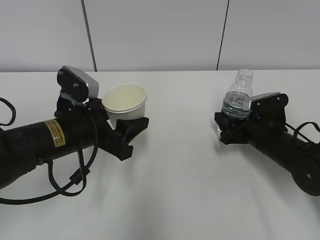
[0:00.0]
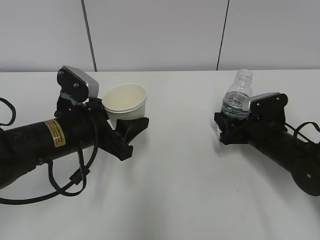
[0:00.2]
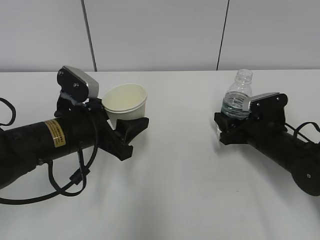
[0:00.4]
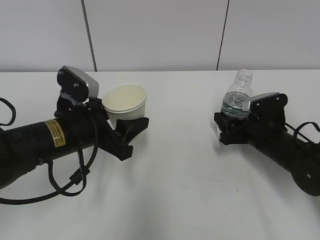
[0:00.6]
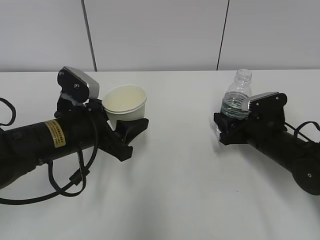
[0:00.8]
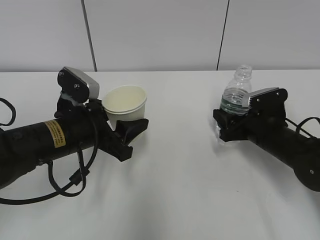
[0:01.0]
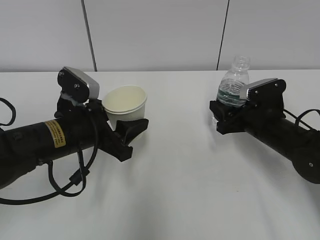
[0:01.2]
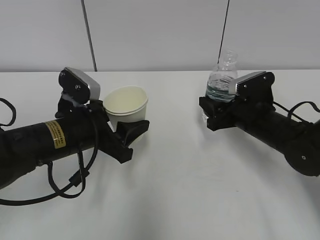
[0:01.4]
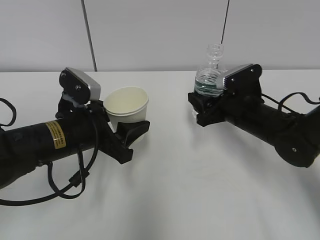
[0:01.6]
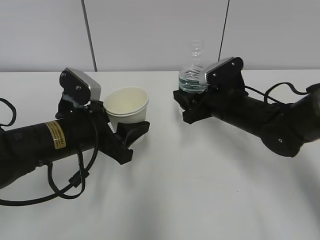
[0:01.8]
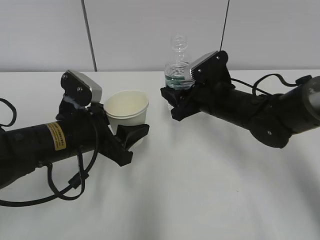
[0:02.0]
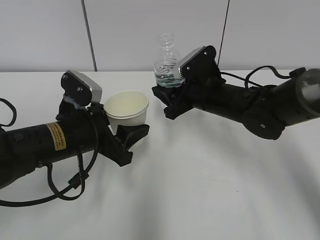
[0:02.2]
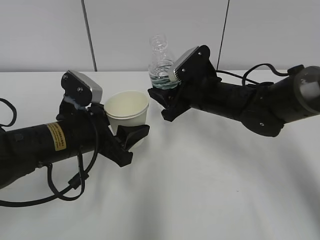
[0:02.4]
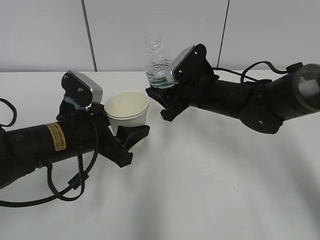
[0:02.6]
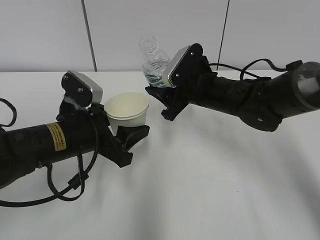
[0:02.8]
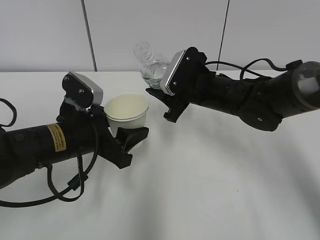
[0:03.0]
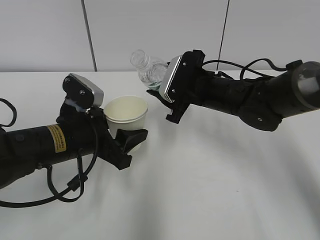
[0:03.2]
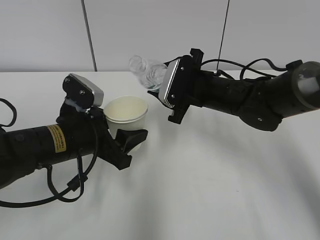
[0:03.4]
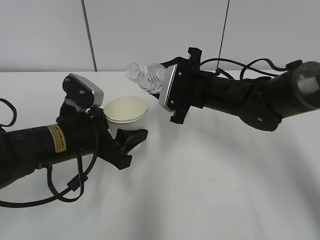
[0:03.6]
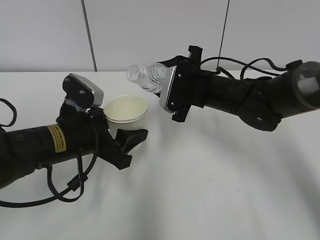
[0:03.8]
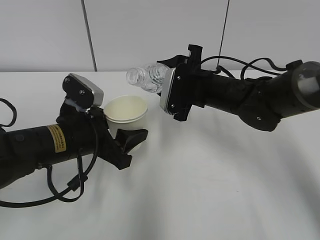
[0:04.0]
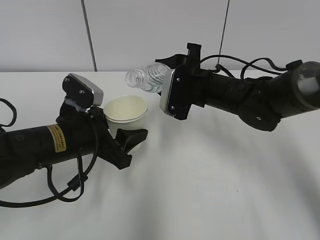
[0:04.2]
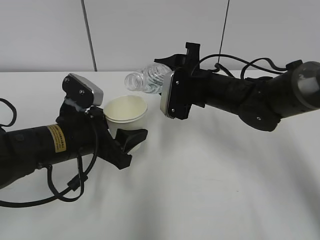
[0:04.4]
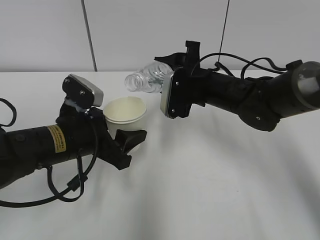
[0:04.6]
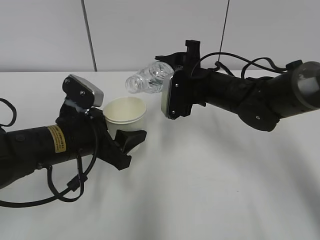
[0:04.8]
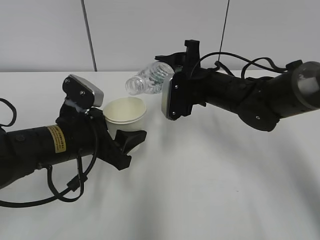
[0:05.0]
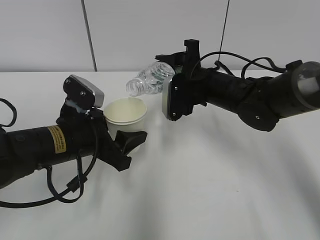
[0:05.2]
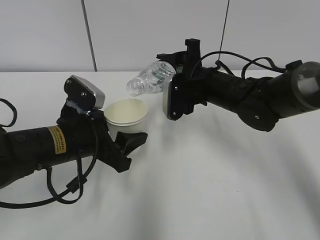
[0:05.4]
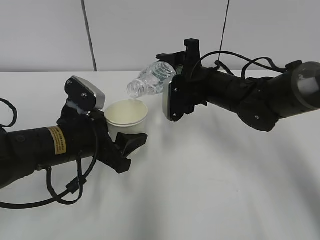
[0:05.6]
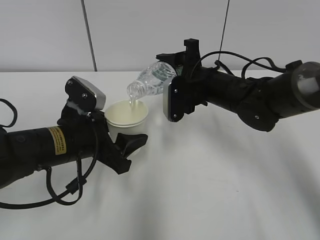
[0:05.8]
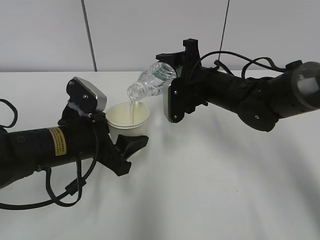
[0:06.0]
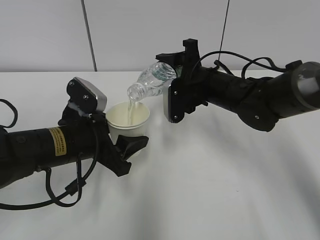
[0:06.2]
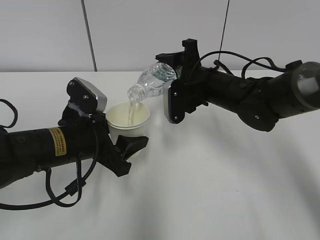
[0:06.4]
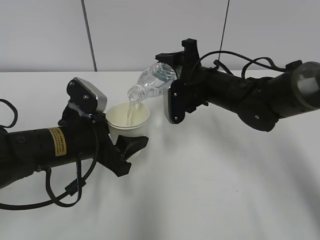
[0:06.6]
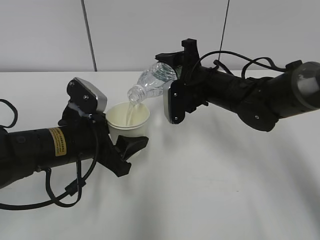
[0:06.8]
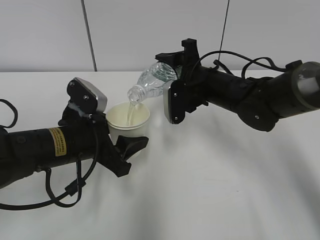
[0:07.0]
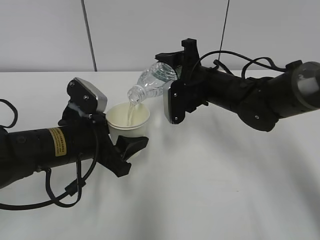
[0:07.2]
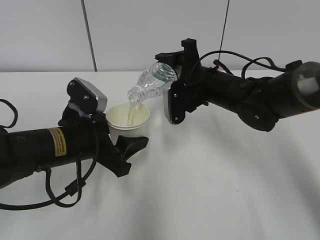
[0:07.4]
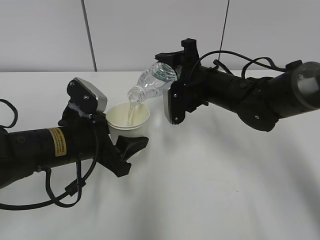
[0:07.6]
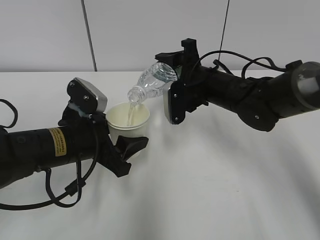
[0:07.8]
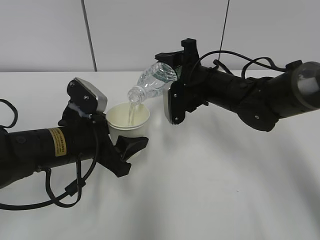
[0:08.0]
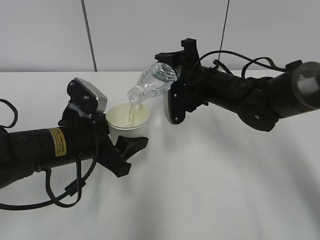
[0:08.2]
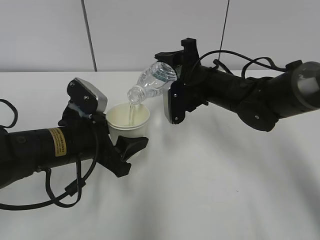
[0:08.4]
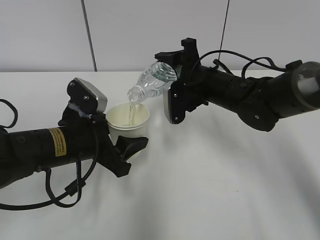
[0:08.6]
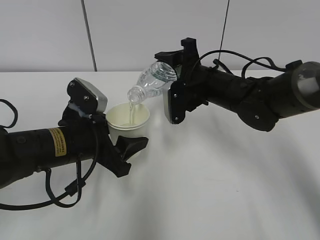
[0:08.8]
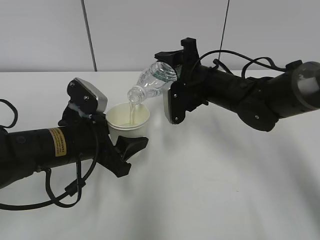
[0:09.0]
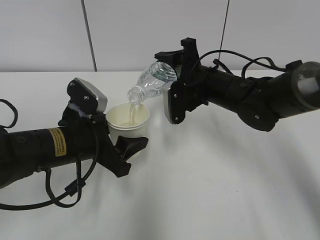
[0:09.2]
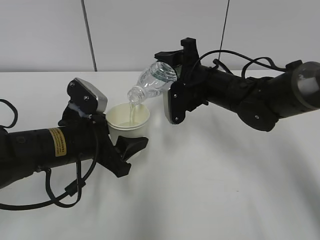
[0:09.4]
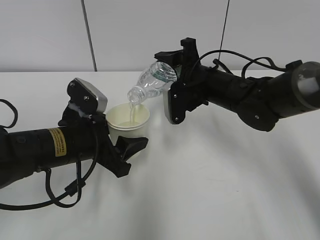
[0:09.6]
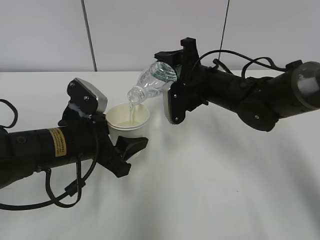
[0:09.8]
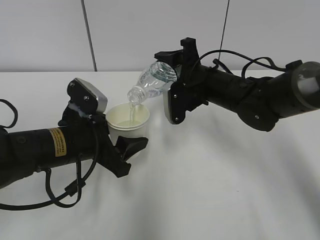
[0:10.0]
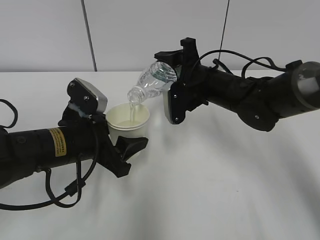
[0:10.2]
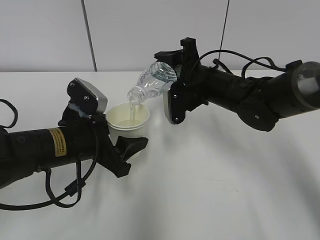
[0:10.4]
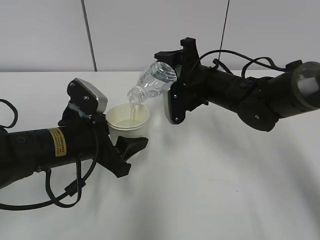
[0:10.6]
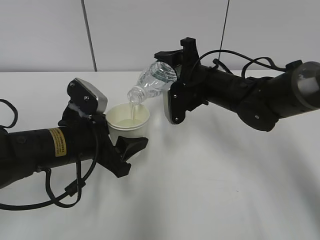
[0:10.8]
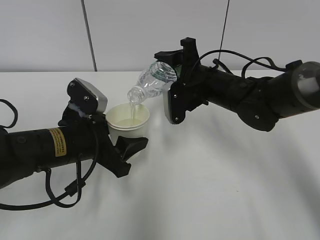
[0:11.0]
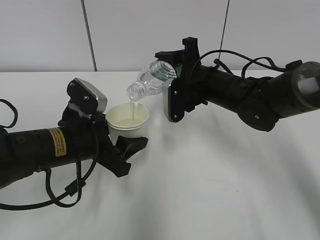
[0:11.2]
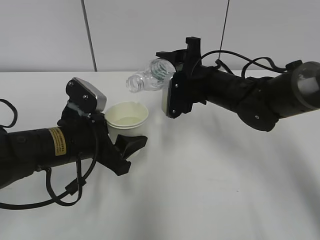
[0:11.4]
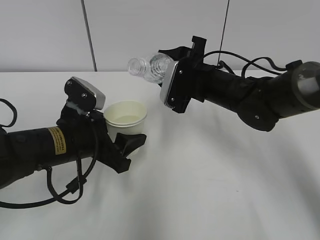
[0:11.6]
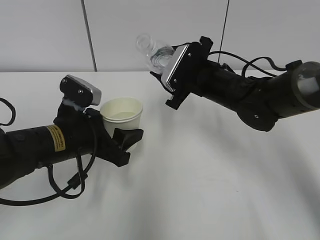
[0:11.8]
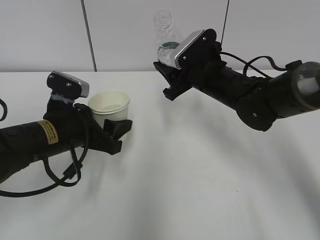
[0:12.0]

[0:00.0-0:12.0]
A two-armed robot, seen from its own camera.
Step, 0:03.0 to 0:07.6: Fill water with the left hand.
Step, 0:03.0 to 0:07.6: Pour water with the right hand.
0:00.0 to 0:01.6: The right gripper shifts roughly 10 cm upward and to the left.
0:01.6 to 0:03.0: The right gripper heads to the left, covering roughly 5 cm.
0:04.4 to 0:06.0: There are only small adjustments of the grippers.
0:06.0 to 0:09.0: Both grippers stay put.
0:09.0 to 0:10.4: Both grippers stay put.

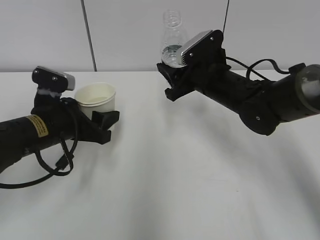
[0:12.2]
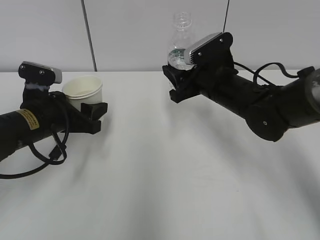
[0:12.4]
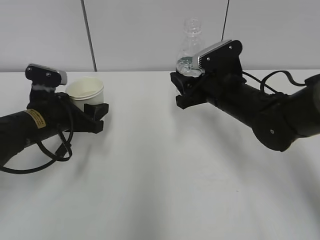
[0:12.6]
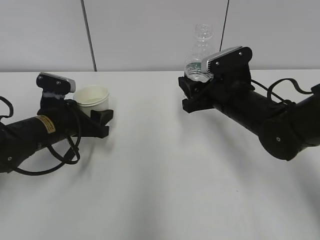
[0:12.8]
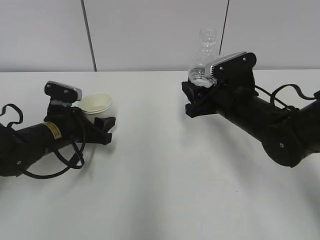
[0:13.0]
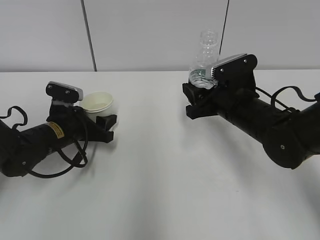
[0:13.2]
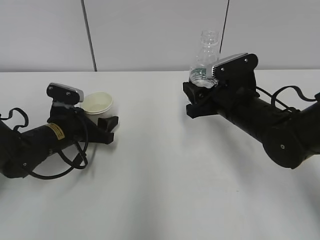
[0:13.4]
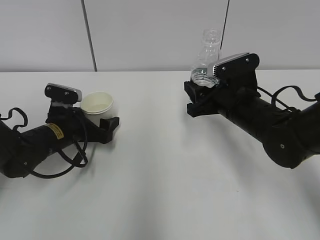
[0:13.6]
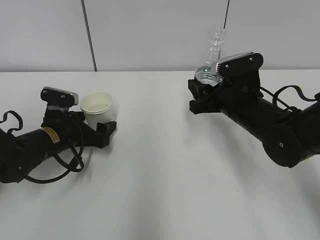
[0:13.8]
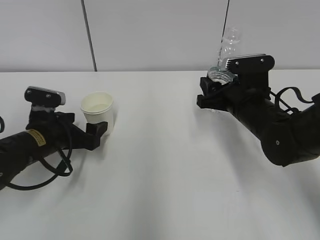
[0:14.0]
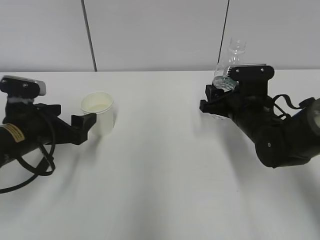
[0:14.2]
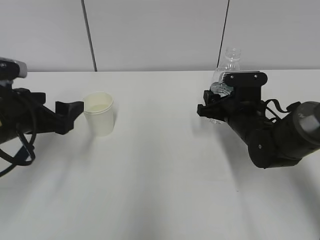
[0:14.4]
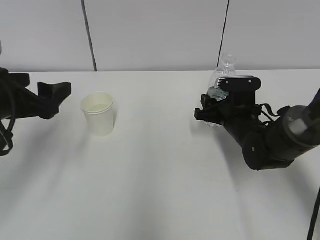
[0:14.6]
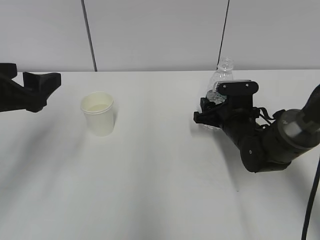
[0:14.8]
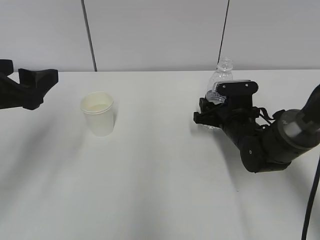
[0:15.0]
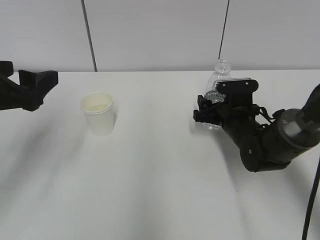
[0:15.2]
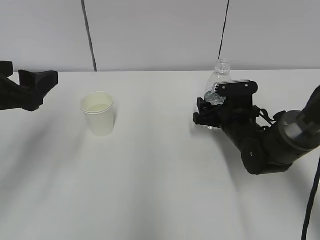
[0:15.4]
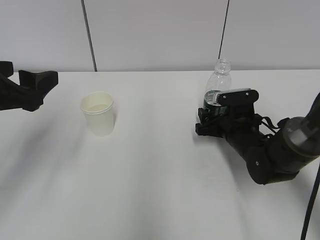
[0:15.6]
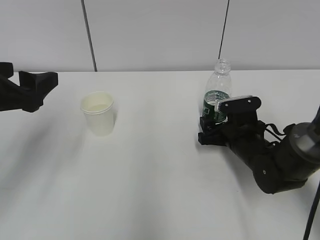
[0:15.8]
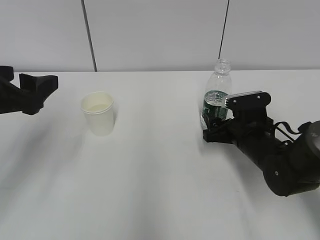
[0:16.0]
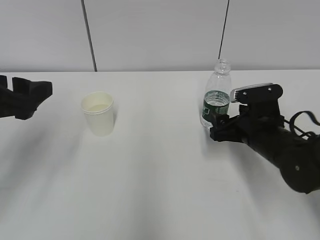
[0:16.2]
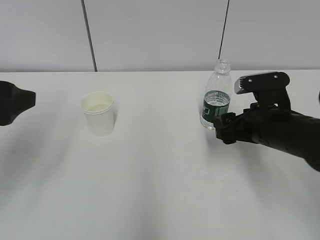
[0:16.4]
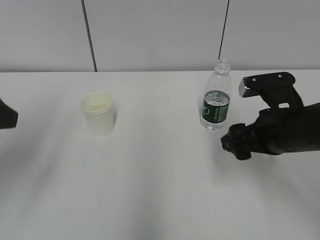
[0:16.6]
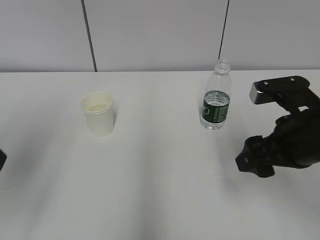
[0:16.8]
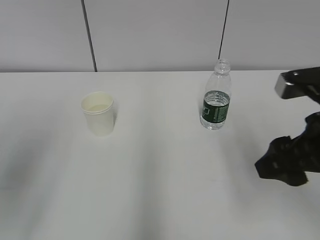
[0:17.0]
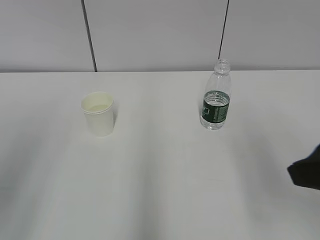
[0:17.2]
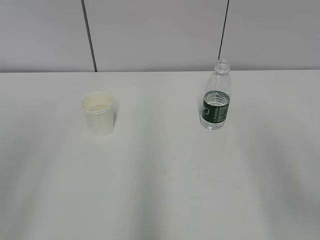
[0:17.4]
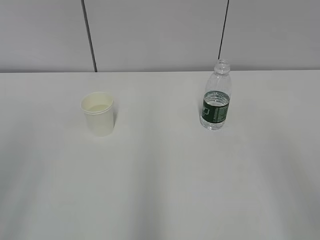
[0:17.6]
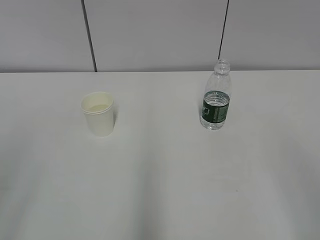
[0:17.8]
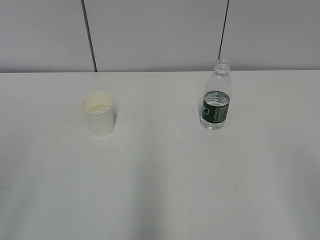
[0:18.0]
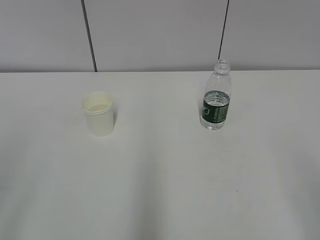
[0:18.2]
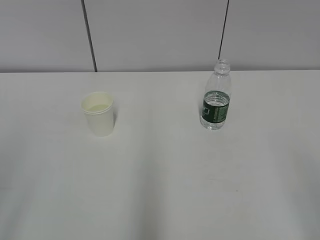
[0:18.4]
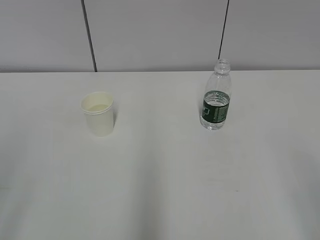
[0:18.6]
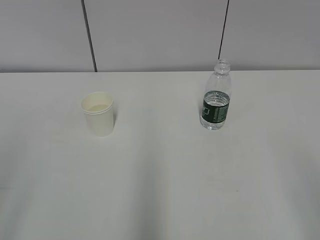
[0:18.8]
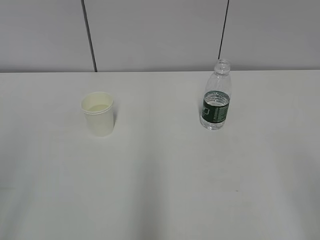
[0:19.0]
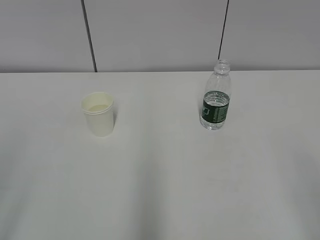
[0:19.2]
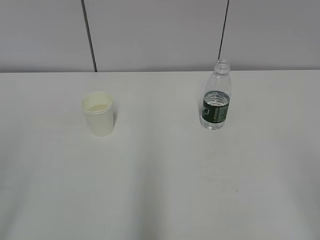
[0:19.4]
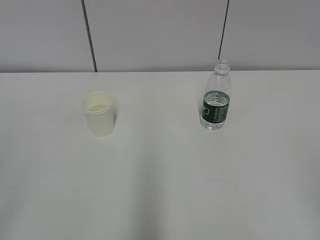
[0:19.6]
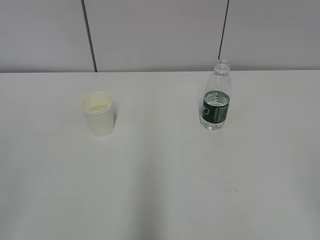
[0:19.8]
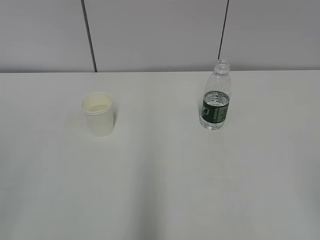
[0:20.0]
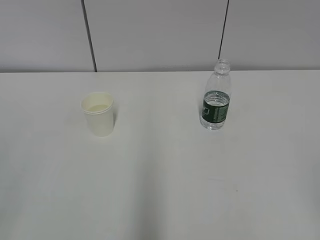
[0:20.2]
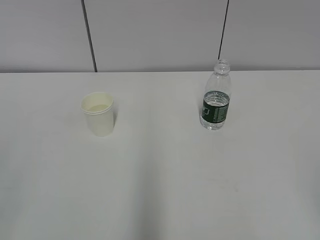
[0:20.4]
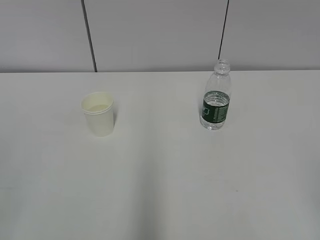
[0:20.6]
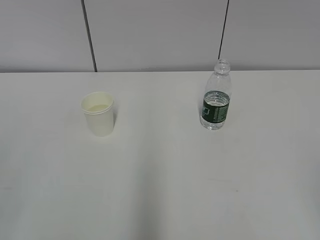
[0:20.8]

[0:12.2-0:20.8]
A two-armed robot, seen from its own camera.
0:12.2 to 0:13.6: The left gripper is displaced downward and forward by some 10 cm, and opens its fingers. The right gripper ends up some 5 cm from where it was.
0:13.6 to 0:15.0: The right gripper shifts roughly 10 cm downward. The left gripper heads upward and backward, covering about 20 cm.
0:15.0 to 0:16.6: The right gripper shifts some 15 cm backward and upward, and opens. The left gripper shifts by some 5 cm.
0:16.6 to 0:18.0: The right gripper is displaced backward and upward by roughly 25 cm; the left gripper is displaced backward by about 15 cm.

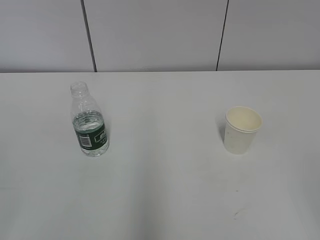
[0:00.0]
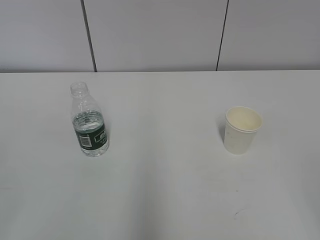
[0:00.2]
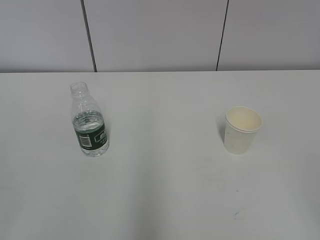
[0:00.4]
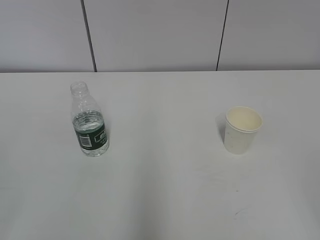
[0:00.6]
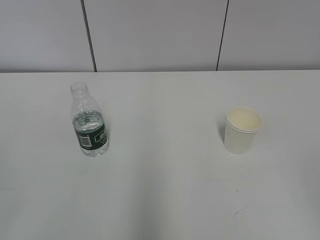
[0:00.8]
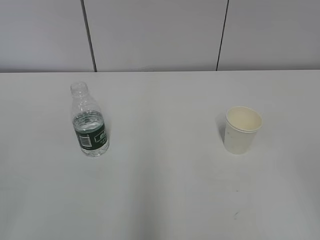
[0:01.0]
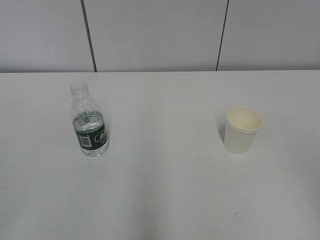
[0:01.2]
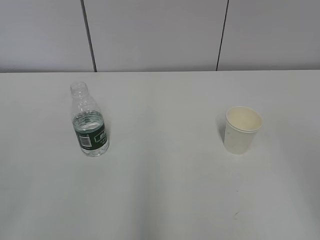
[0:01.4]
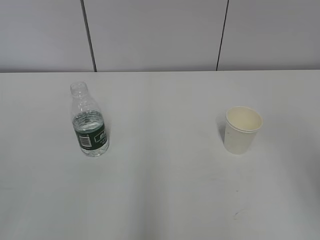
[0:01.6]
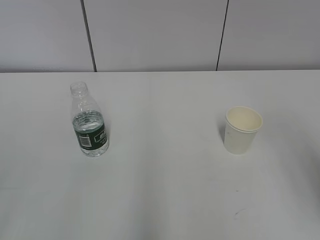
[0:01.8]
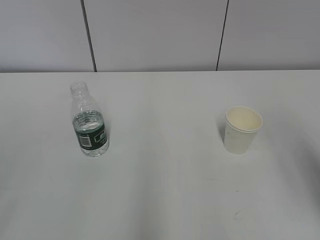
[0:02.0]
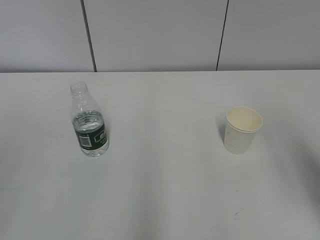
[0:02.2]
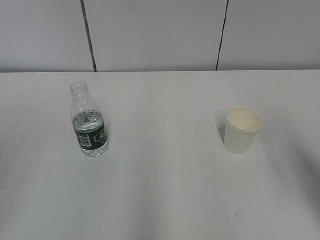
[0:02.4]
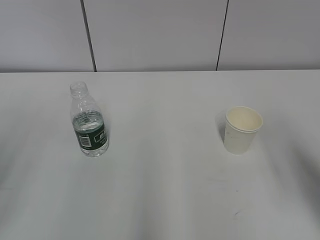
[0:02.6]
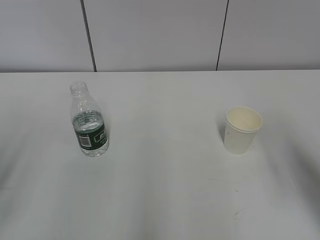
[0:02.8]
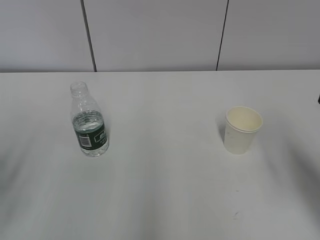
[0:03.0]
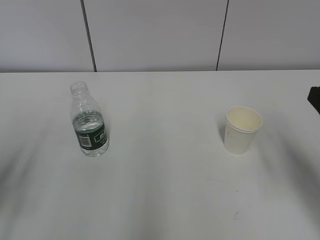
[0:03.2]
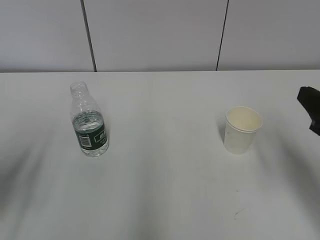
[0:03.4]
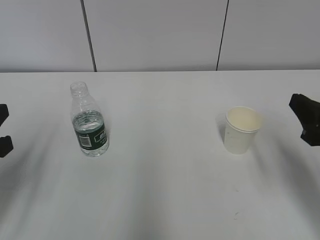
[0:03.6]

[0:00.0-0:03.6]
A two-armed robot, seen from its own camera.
0:01.8 to 0:03.6: The left gripper goes some 20 cm forward and downward. Meanwhile the right gripper goes approximately 15 cm downward and forward.
